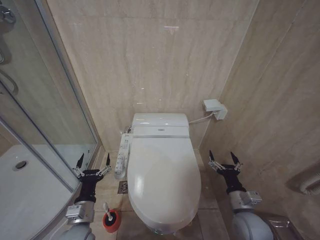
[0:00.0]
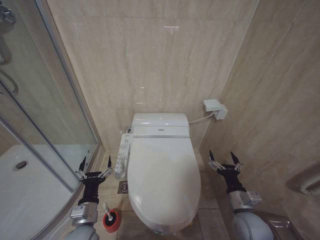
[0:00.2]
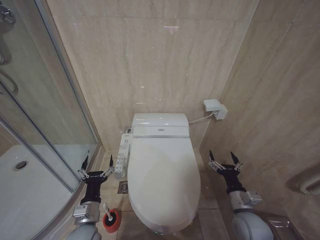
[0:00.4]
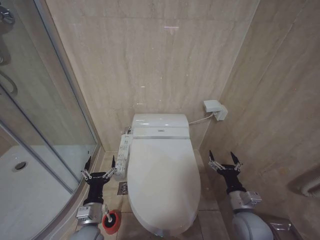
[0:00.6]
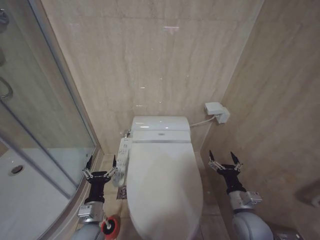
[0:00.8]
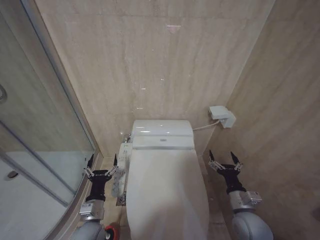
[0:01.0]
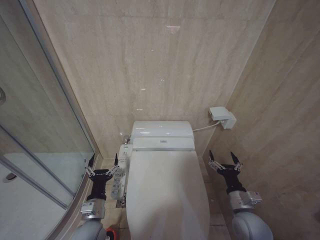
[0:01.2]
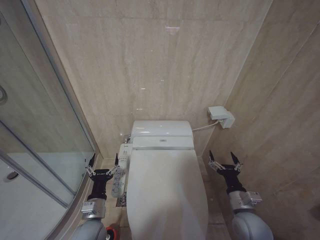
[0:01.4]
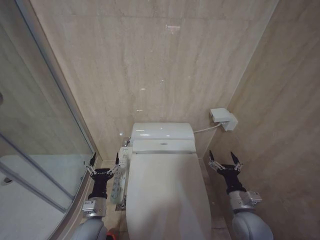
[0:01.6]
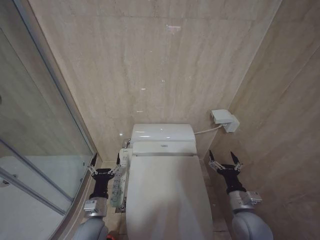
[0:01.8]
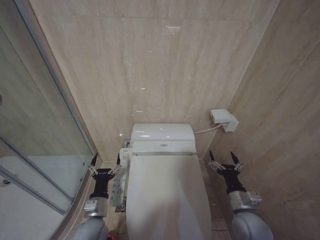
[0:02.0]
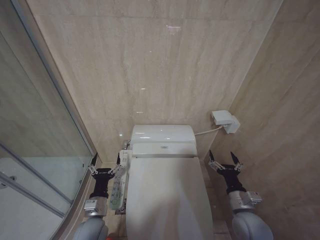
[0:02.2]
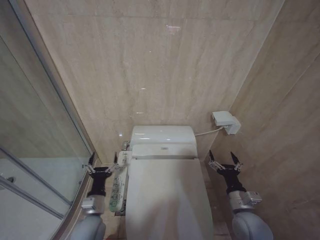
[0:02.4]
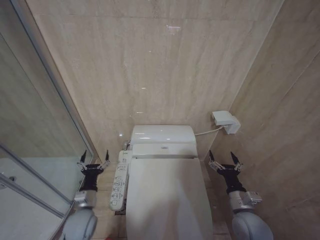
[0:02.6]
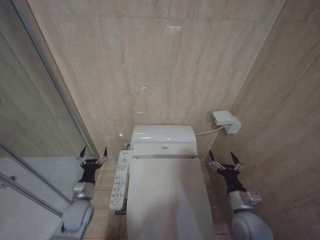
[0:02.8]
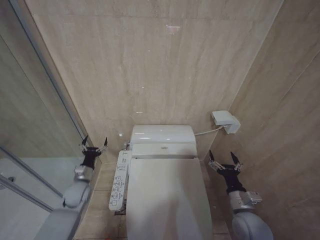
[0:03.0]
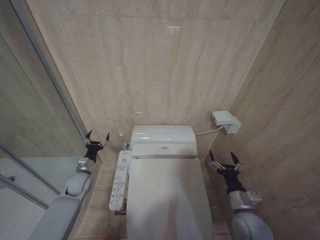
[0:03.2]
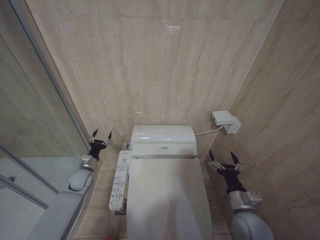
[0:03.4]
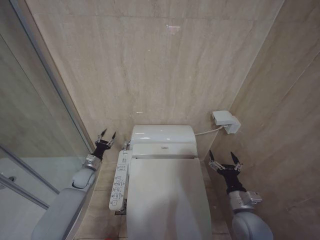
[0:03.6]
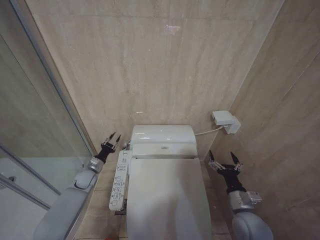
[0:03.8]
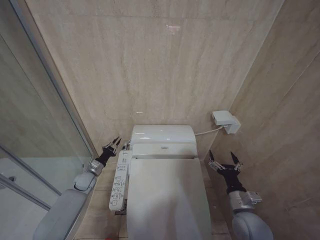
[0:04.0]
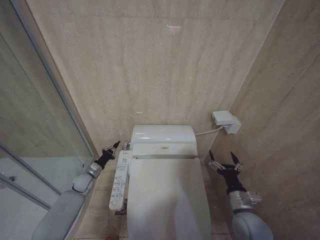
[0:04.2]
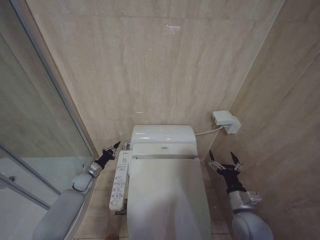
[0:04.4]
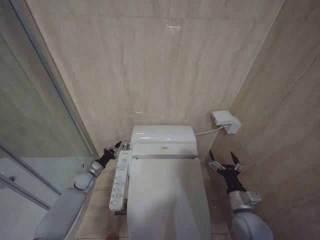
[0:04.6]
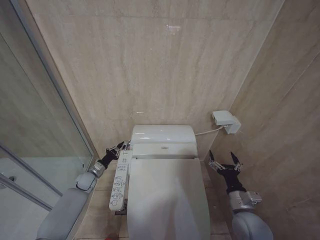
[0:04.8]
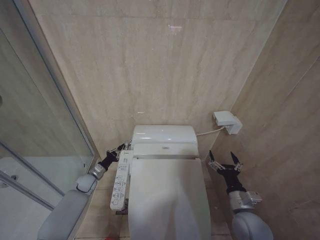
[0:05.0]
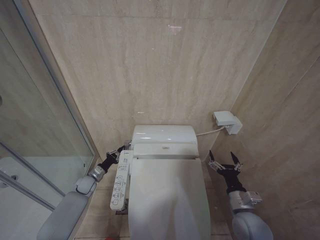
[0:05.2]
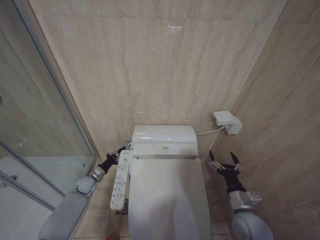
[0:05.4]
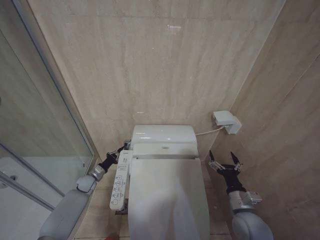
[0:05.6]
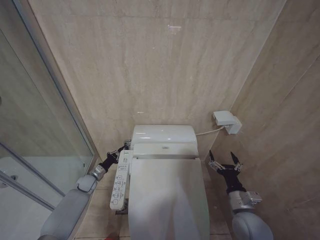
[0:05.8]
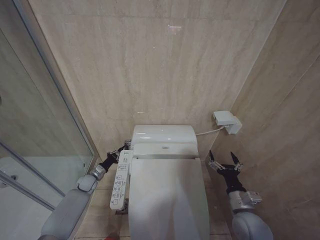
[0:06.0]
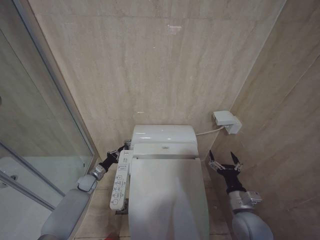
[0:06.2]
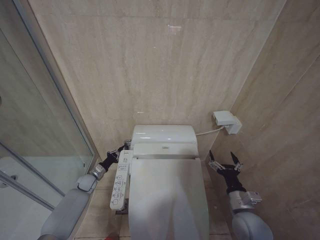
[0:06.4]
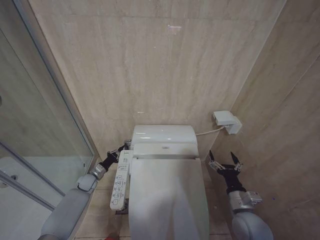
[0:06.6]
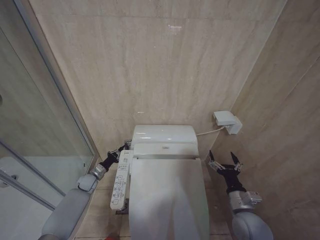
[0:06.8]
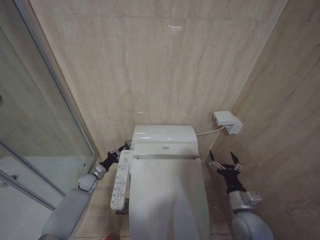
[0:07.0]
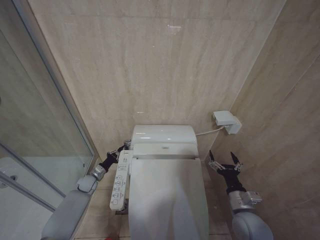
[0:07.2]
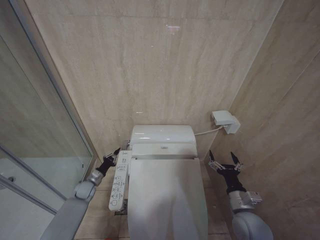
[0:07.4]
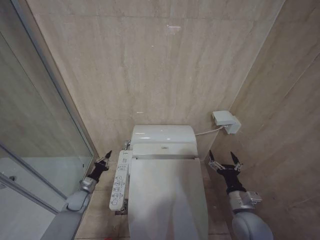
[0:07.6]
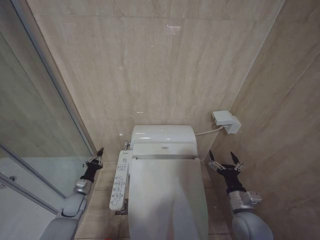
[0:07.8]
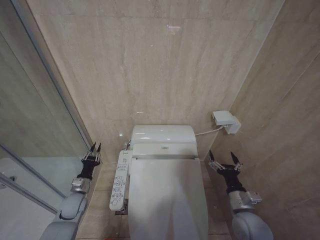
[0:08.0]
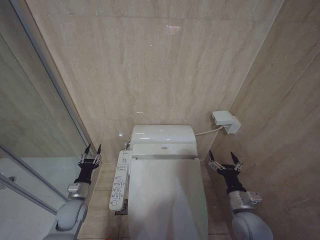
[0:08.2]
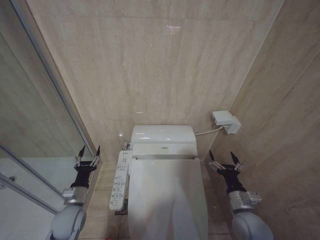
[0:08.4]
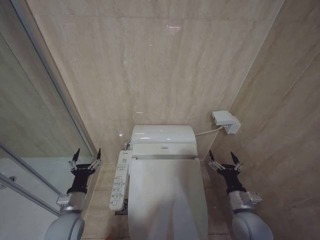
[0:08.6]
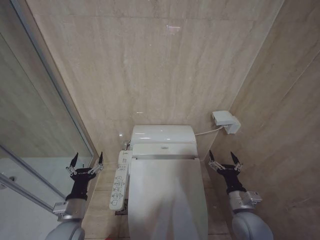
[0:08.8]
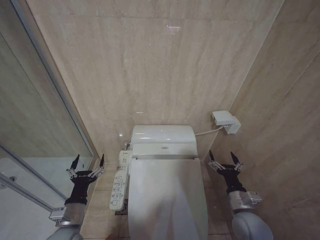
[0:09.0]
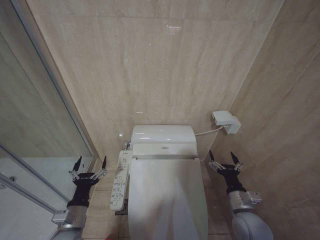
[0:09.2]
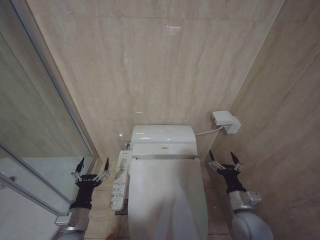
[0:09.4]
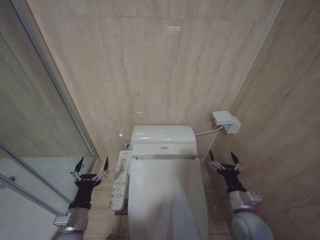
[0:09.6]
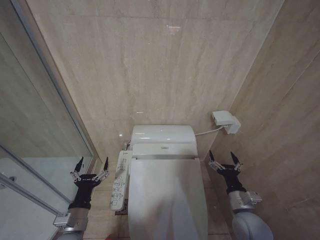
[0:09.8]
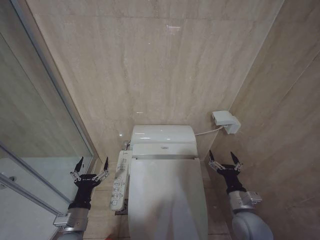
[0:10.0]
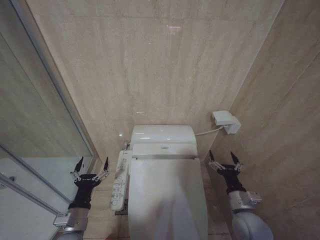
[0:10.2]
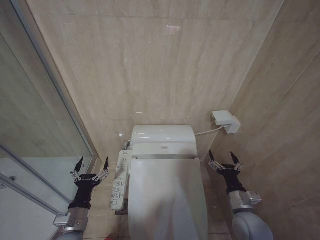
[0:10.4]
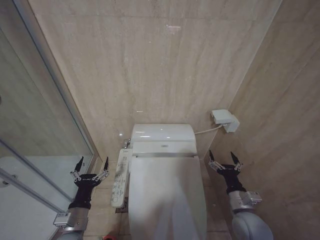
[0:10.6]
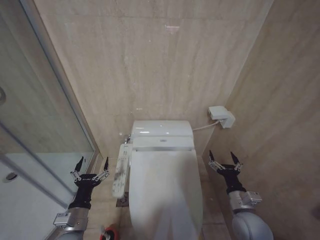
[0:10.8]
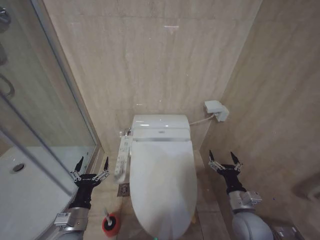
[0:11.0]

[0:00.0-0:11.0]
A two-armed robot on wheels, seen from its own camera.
Task of the whole recording: Open the toilet lid, clean the toilet bowl with a toilet brush, close the toilet lid, and flush.
0:00.0 to 0:01.6: The left gripper shifts by roughly 5 cm.
0:01.6 to 0:03.2: The left gripper goes approximately 20 cm forward and to the left.
0:03.2 to 0:04.8: The left gripper shifts approximately 10 cm downward and forward, and closes.
0:04.8 to 0:06.2: The grippers move only a little.
0:06.2 to 0:07.8: The left gripper shifts roughly 10 cm backward.
0:07.8 to 0:09.4: The left gripper shifts roughly 25 cm backward, upward and to the right, and opens its fingers.
0:09.4 to 0:11.0: Both grippers stay about where they are.

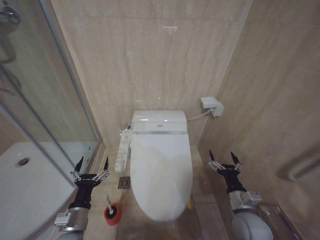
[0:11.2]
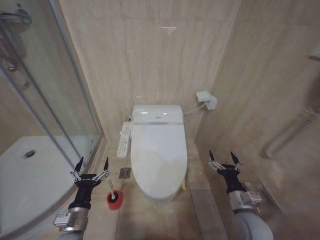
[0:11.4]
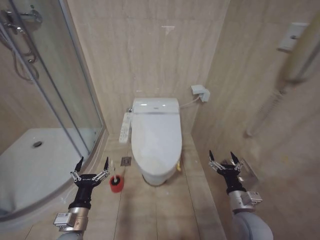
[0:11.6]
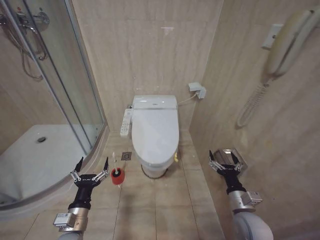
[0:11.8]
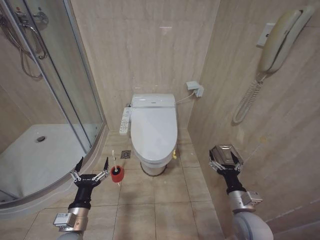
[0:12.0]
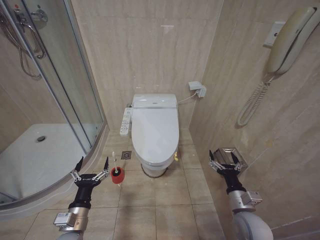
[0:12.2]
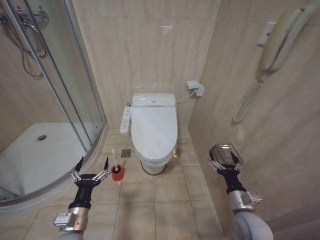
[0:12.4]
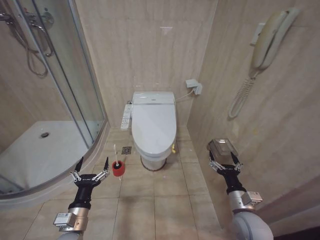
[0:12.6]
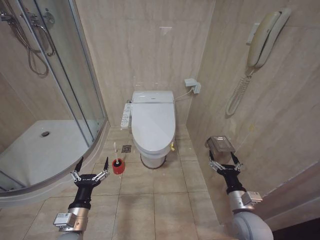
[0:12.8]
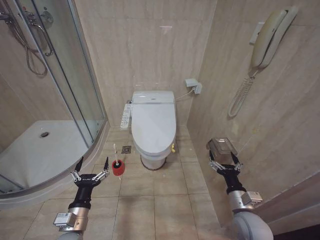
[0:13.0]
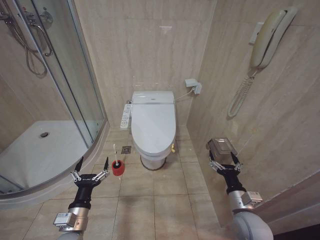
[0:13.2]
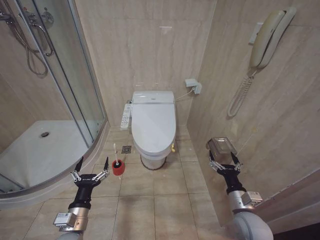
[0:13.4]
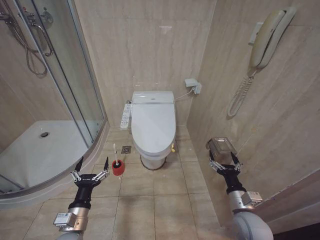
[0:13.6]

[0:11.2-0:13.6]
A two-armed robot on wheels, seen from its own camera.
Task of the whole recording: Open the toilet lid, clean the toilet bowl with a toilet brush, close the toilet lid, and flush.
0:12.4 to 0:13.6: Both grippers stay put.
